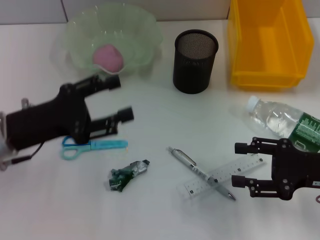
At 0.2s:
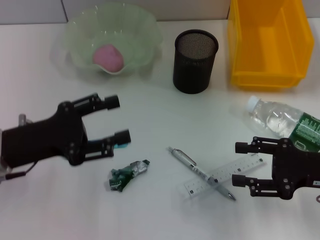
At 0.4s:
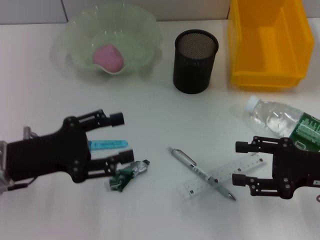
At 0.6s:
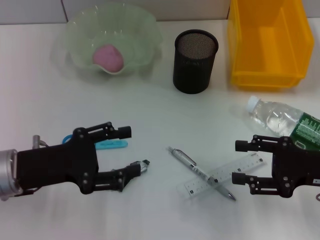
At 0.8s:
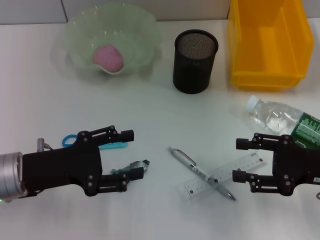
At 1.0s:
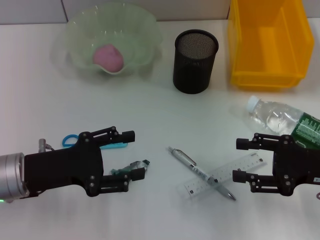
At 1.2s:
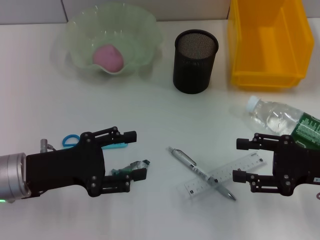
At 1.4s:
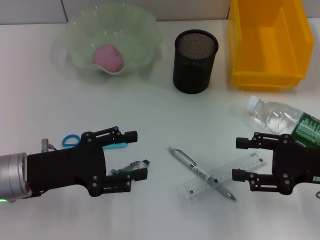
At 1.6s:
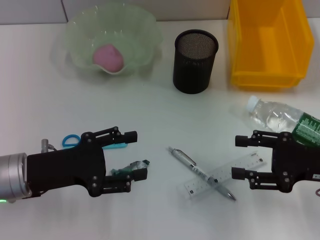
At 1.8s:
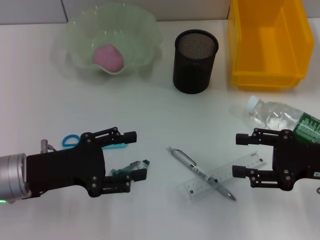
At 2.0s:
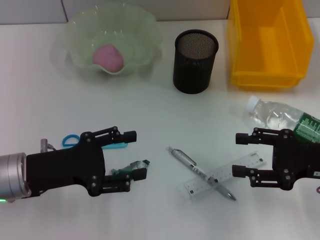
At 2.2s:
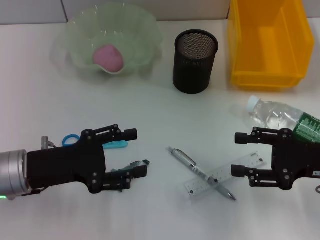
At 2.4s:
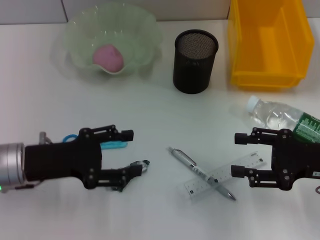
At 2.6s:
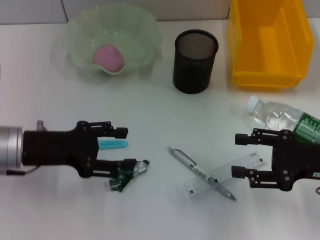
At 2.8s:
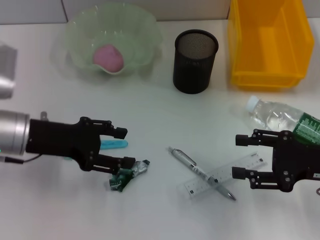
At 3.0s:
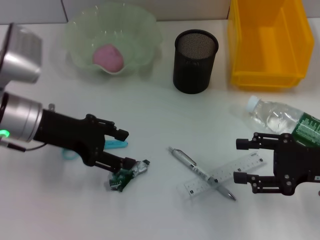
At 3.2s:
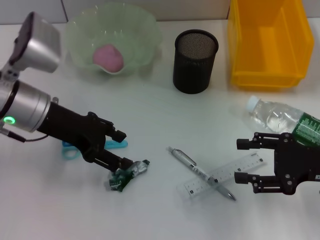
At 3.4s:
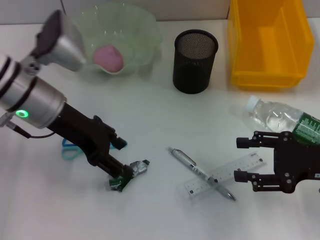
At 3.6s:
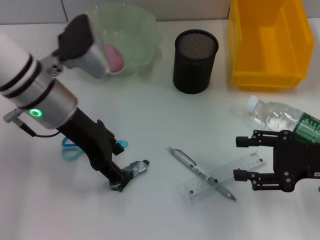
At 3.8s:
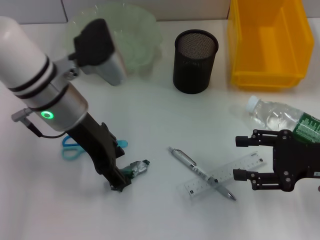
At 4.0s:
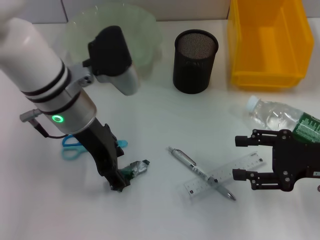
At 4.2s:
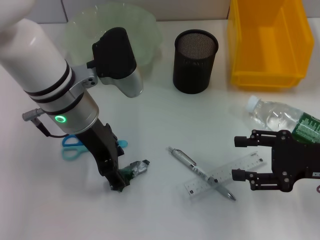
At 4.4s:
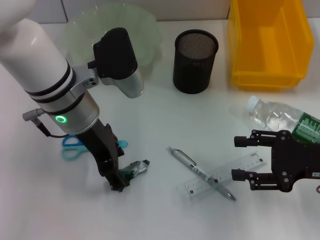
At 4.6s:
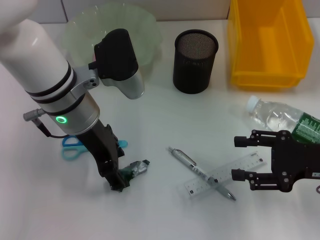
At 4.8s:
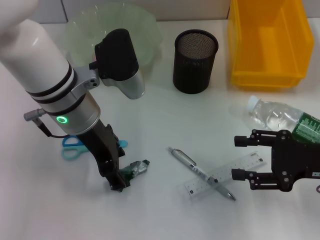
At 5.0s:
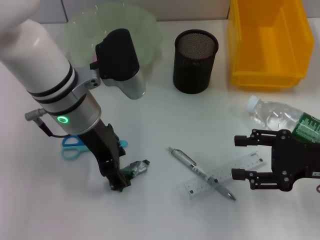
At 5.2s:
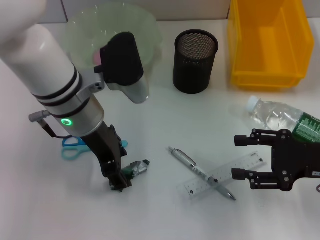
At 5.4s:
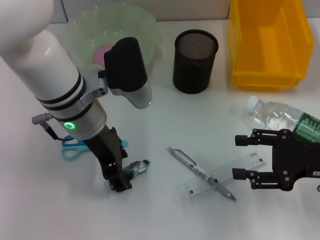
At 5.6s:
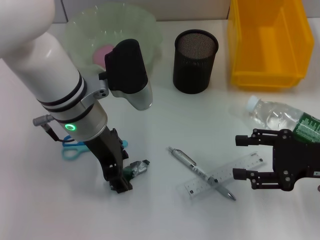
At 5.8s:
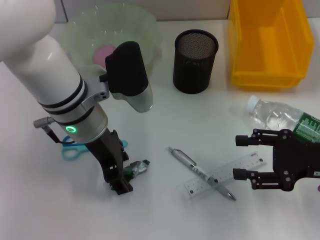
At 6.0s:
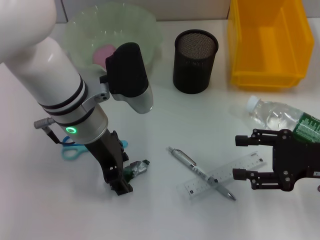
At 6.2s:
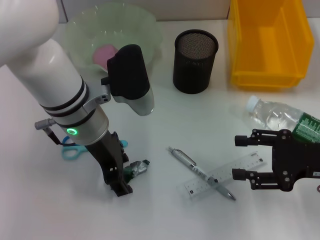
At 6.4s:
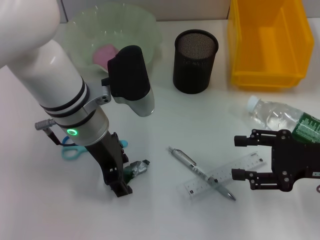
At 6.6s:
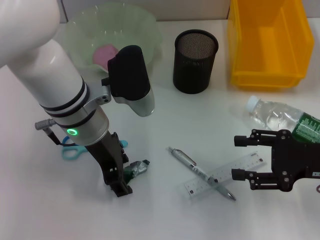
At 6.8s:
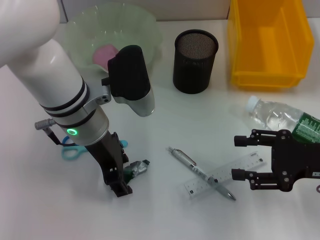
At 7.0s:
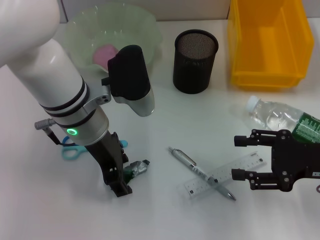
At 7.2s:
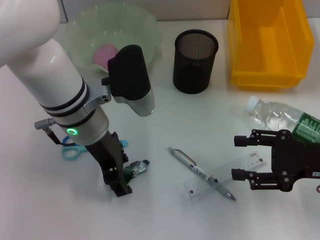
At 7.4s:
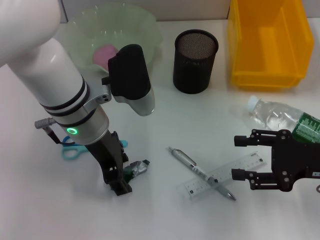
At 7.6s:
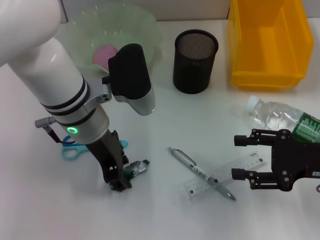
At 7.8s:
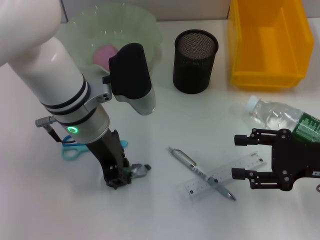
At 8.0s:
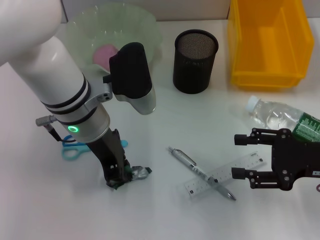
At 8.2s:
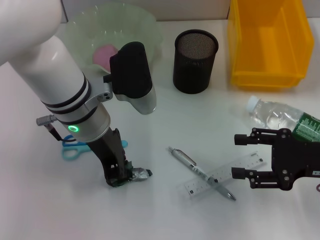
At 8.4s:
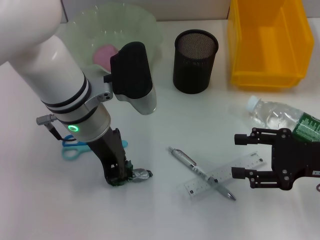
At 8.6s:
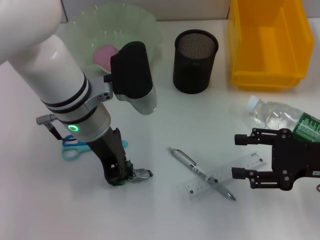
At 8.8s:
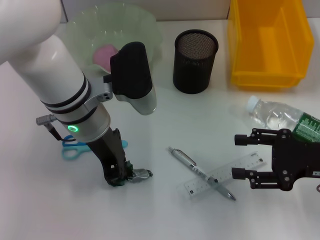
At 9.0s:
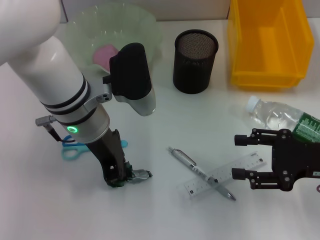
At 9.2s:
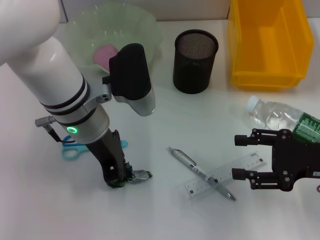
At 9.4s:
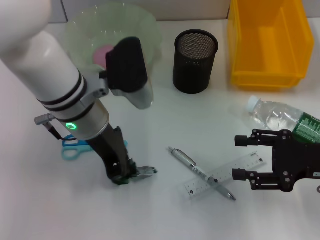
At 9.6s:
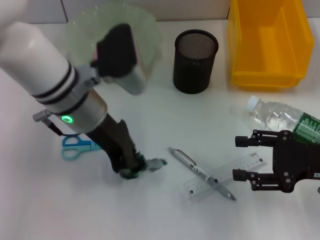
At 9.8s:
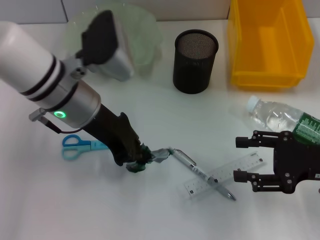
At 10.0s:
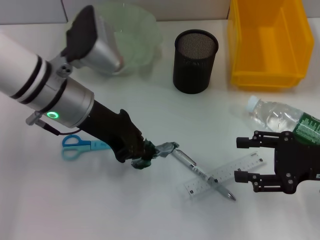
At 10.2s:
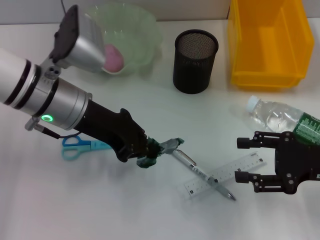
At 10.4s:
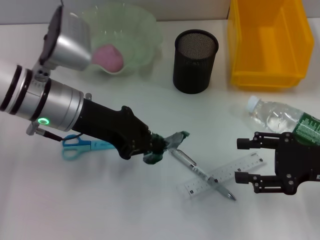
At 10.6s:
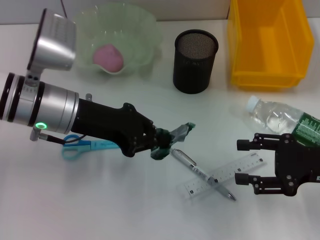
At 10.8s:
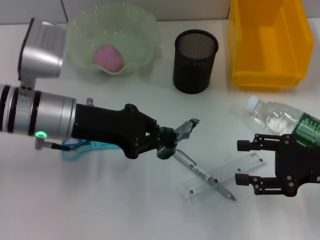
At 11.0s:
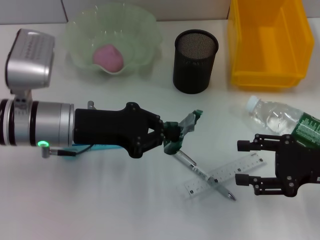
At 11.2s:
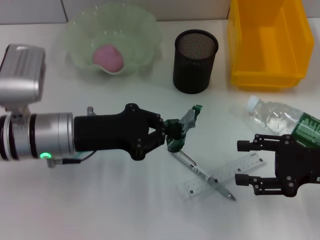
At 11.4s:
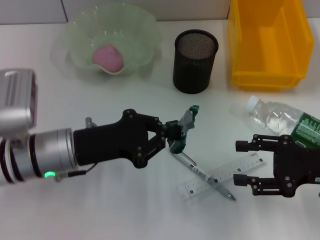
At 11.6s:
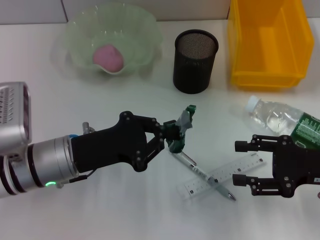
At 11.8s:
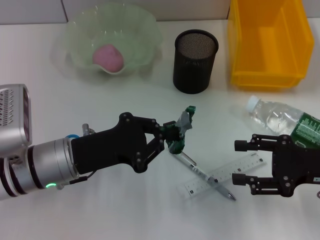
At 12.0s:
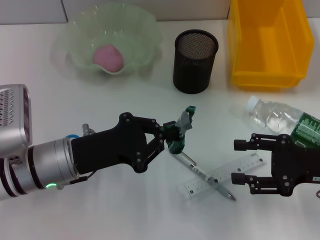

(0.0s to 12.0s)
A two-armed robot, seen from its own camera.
Step, 0.0s - 8.4s: Grab the plastic with the left hand.
0.0s - 1.6s: The grippers stay close to where they were, moving slightly.
1.6s - 3.0s: The left gripper is displaced forward and upward by some 10 cm.
3.0s - 4.4s: The left gripper shifts about 10 cm to the right.
4.4s - 6.0s: The grippers make only small movements.
6.0s - 7.6s: The two grippers keep their place.
7.6s - 9.0s: The left gripper closes.
9.0s - 10.4s: The left gripper shifts roughly 5 cm to the left.
10.4s - 12.0s: The left gripper heads downward and backward, covering approximately 10 cm.

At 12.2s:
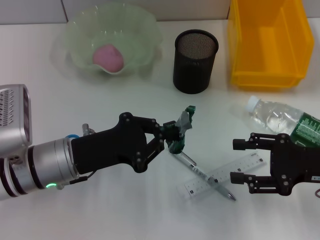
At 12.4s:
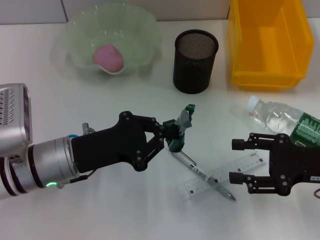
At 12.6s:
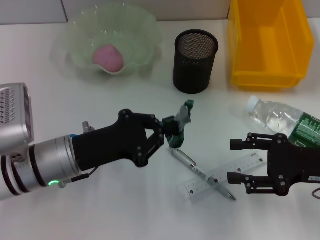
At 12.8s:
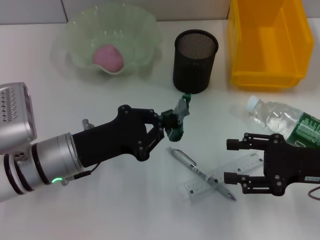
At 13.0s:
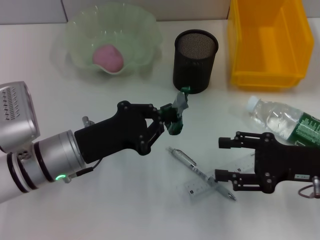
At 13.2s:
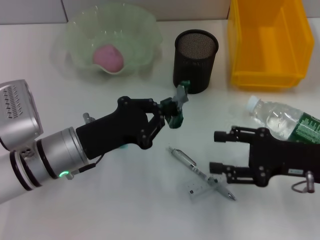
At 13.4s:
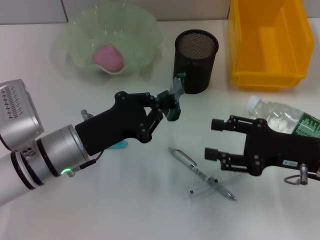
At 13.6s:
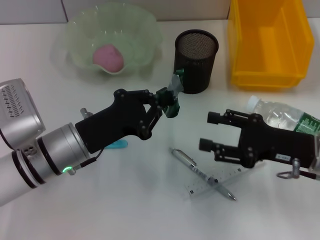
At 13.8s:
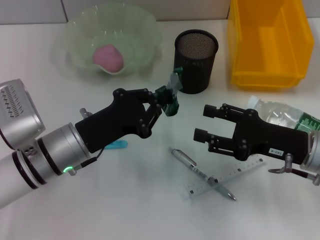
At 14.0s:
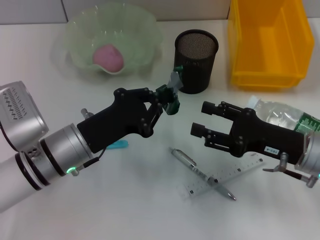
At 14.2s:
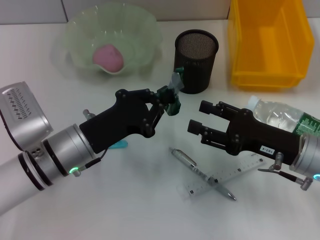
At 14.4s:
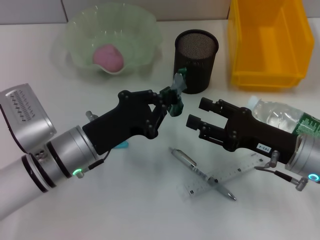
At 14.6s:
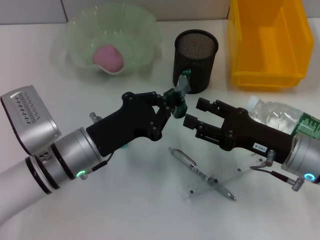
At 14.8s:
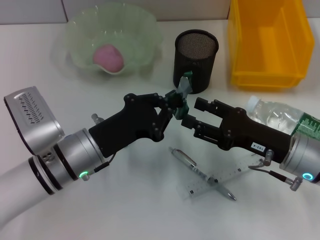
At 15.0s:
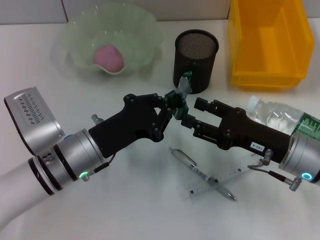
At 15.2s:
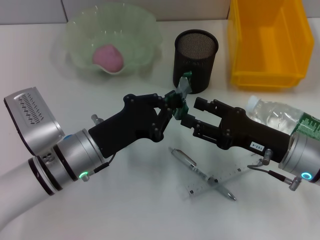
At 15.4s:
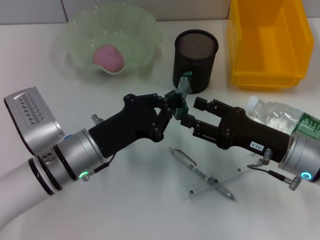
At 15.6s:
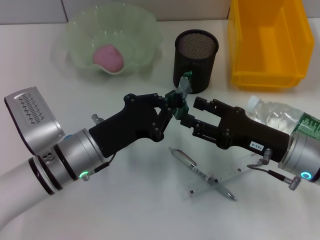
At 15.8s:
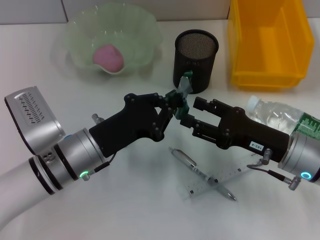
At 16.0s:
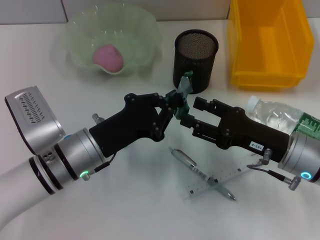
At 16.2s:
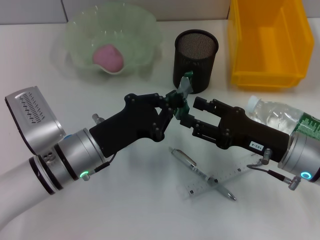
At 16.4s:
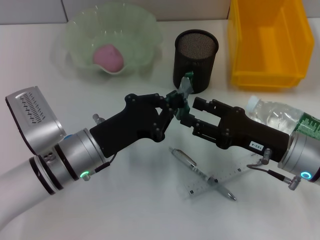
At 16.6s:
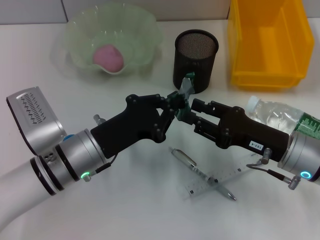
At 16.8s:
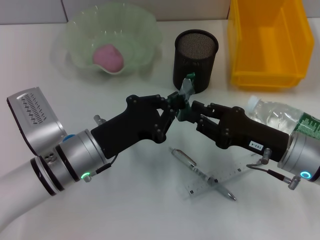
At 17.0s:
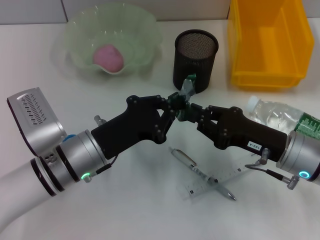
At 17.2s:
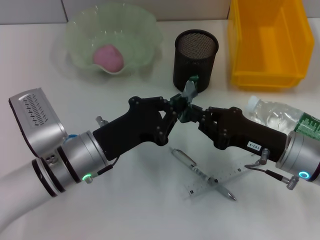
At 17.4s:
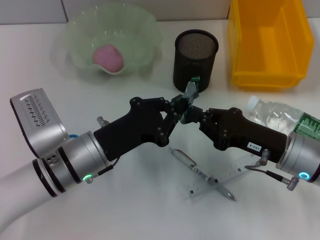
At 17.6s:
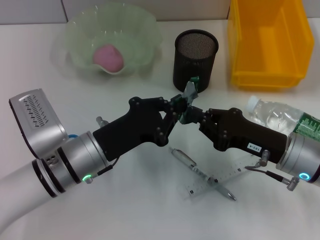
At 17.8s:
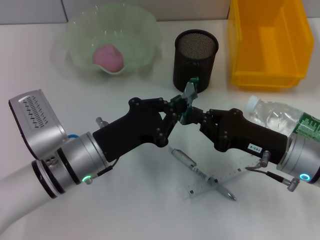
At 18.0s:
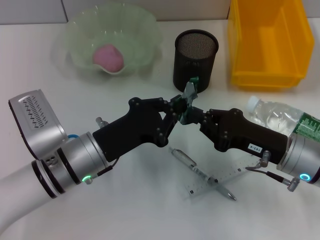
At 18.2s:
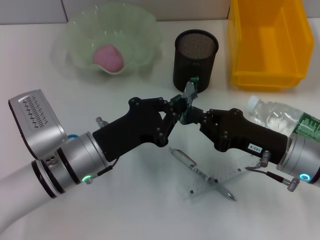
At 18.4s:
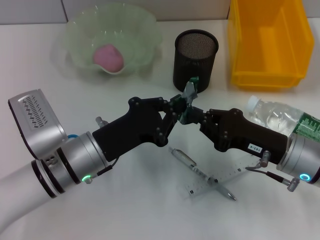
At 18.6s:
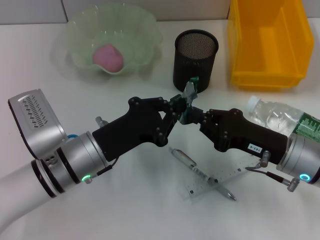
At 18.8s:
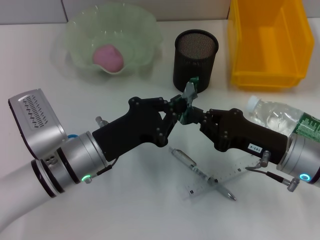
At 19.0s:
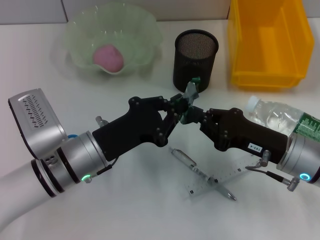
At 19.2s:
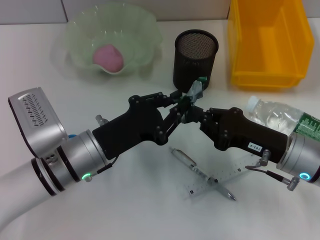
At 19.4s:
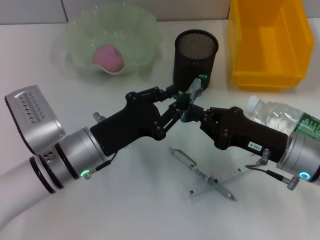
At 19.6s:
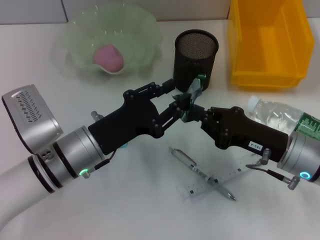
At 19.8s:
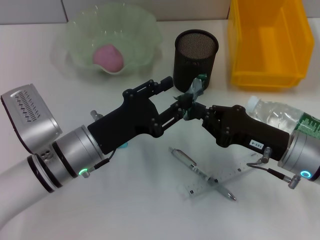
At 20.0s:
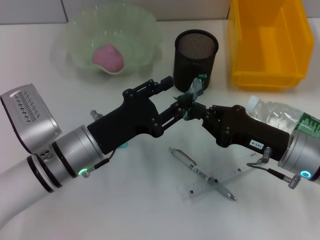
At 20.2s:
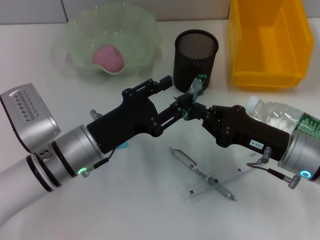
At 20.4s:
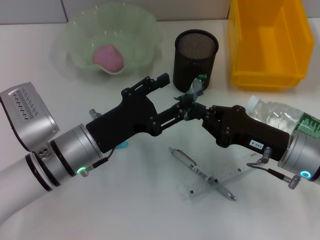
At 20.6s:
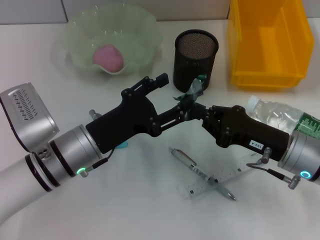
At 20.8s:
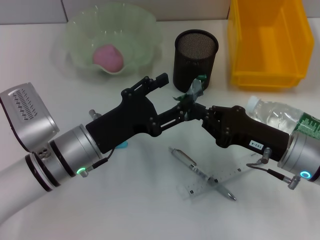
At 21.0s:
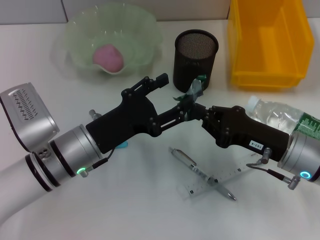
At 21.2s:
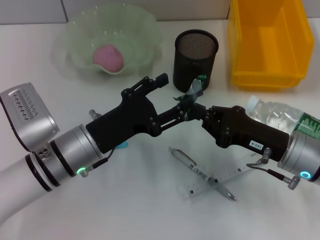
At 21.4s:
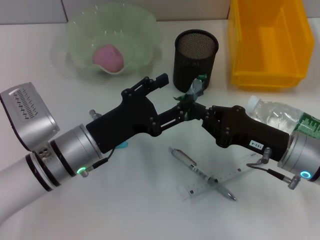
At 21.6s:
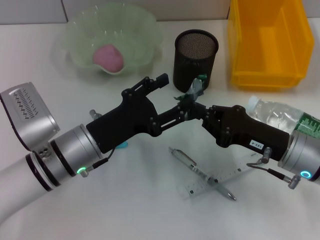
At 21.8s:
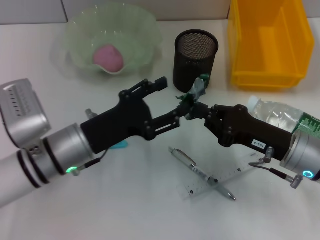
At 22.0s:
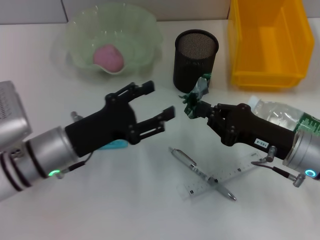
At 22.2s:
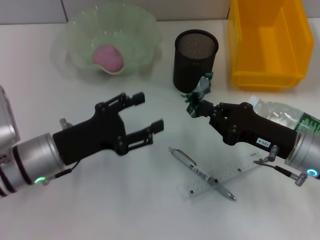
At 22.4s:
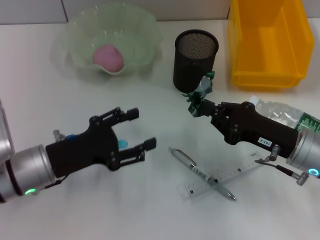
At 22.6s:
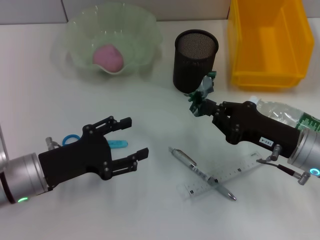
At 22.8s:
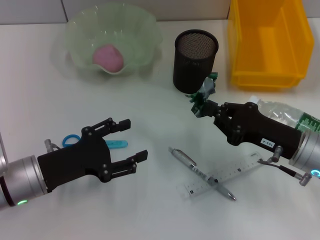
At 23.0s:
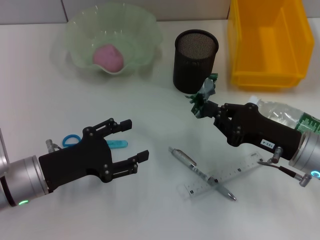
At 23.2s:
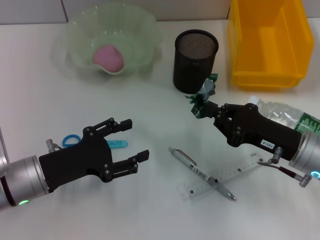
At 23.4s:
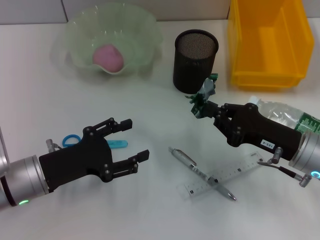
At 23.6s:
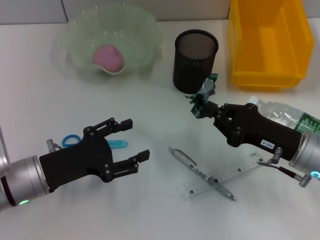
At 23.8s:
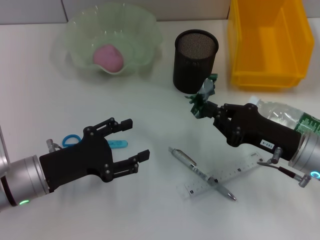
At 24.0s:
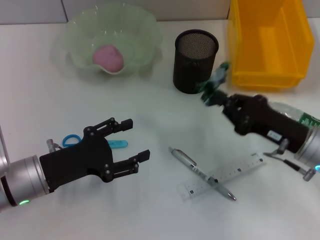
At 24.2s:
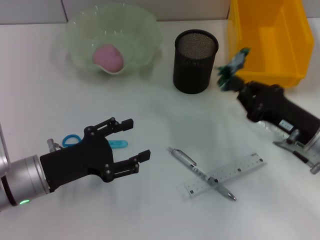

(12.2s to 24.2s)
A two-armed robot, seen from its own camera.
Step, 12.2s - 20.0s: Pass the plastic from the left hand to the right hand.
12.2s - 13.8s: The right gripper ends up some 5 cm from where it was.
13.8s - 15.2s: The grippers stay close to where they were, moving slightly.
15.2s - 16.6s: Neither gripper changes place.
16.6s - 18.2s: The right gripper closes.
18.2s - 19.8s: The left gripper opens.
19.8s - 21.2s: The left gripper opens its fingers.
21.2s - 22.6s: The left gripper goes roughly 10 cm to the left.
22.6s - 24.2s: The grippers stay close to where they were, moving slightly.
